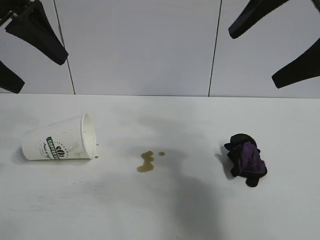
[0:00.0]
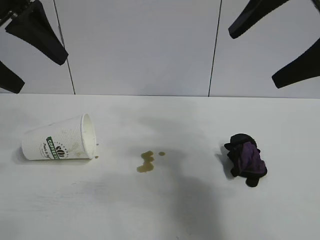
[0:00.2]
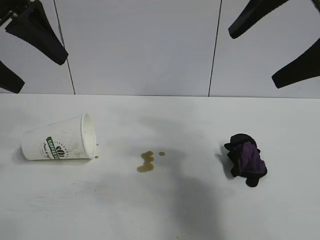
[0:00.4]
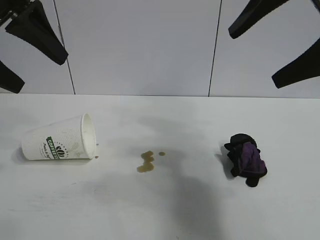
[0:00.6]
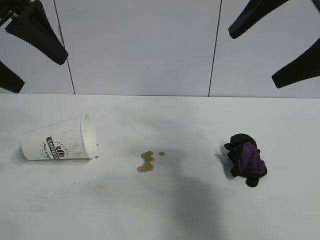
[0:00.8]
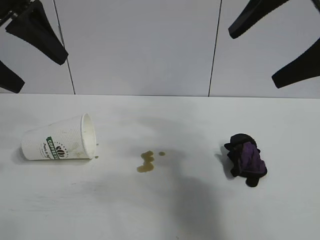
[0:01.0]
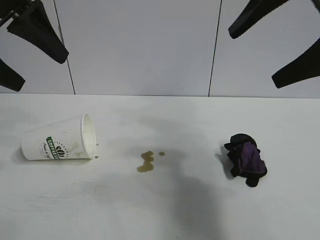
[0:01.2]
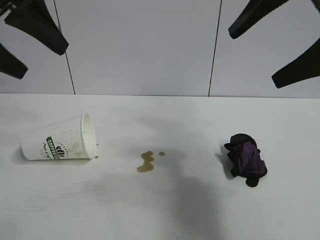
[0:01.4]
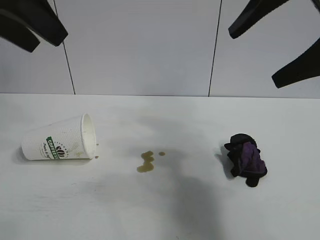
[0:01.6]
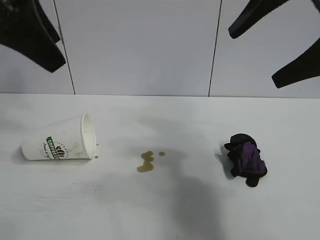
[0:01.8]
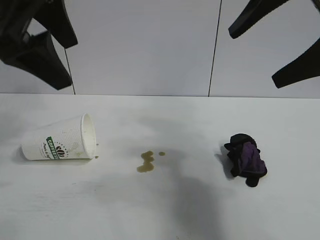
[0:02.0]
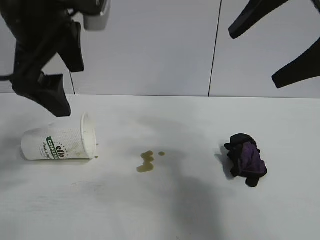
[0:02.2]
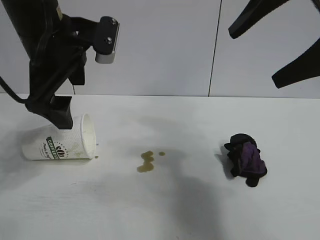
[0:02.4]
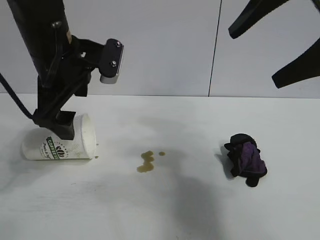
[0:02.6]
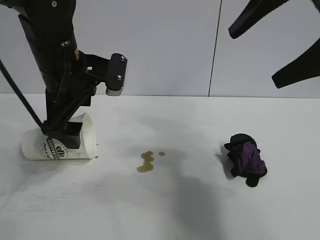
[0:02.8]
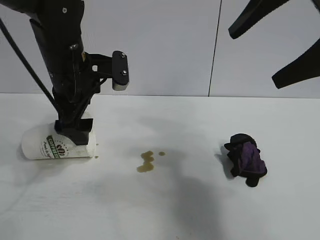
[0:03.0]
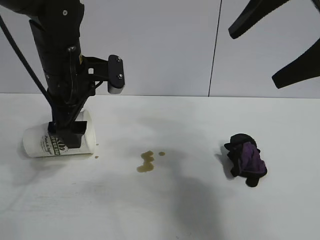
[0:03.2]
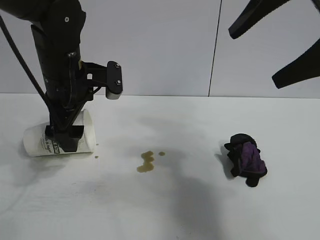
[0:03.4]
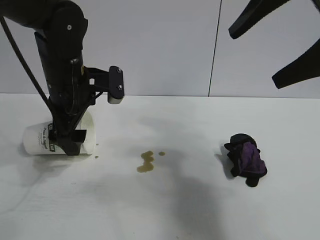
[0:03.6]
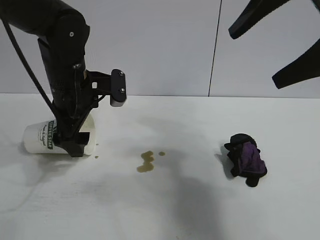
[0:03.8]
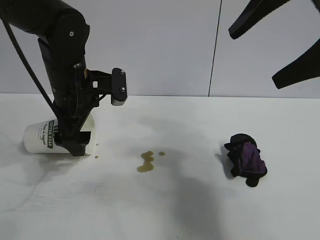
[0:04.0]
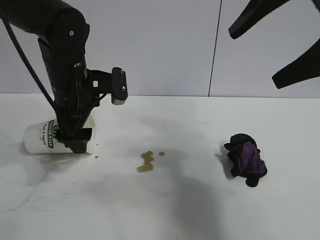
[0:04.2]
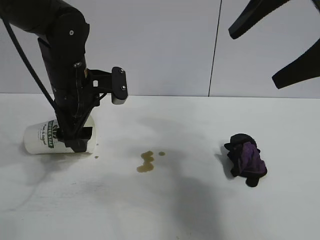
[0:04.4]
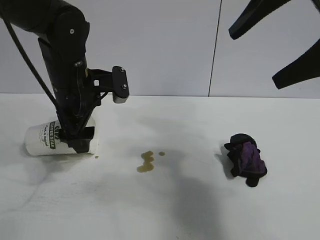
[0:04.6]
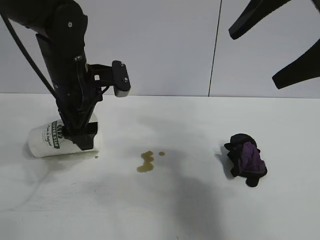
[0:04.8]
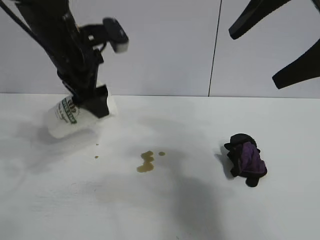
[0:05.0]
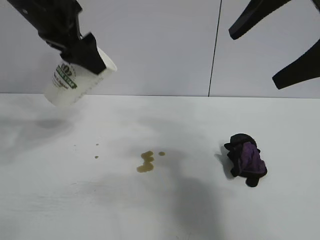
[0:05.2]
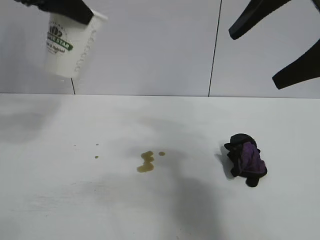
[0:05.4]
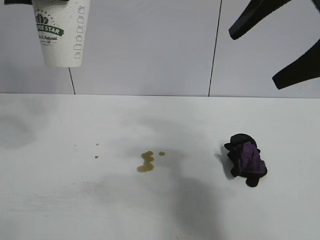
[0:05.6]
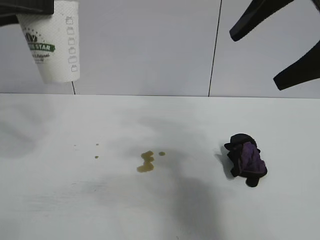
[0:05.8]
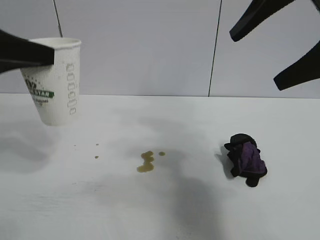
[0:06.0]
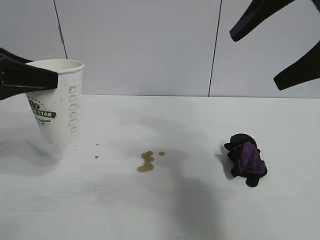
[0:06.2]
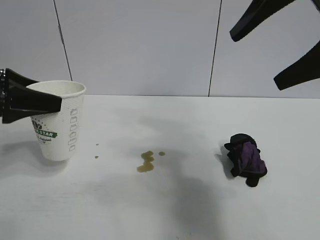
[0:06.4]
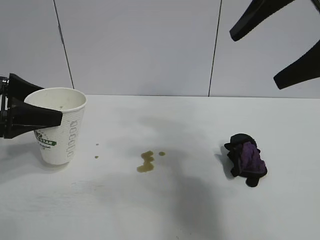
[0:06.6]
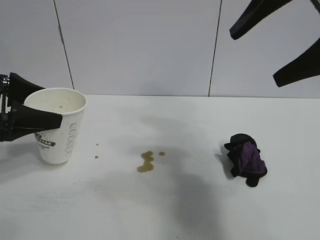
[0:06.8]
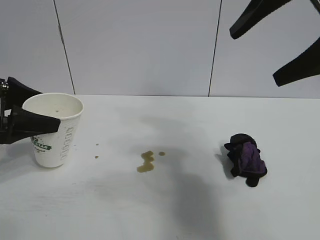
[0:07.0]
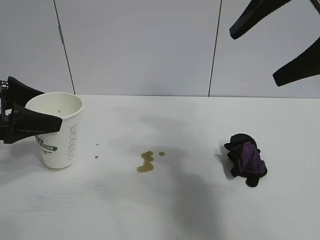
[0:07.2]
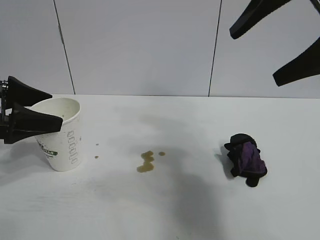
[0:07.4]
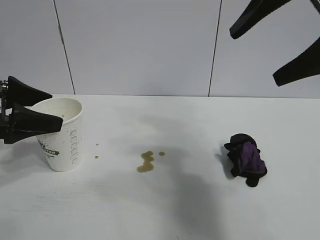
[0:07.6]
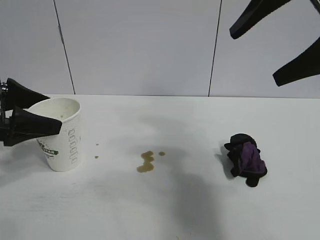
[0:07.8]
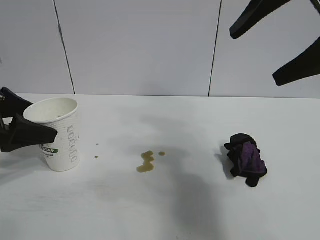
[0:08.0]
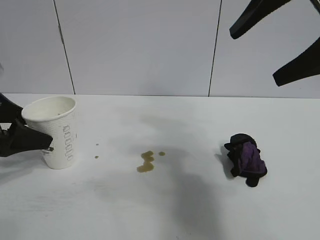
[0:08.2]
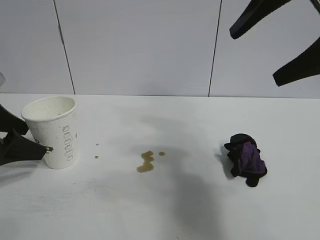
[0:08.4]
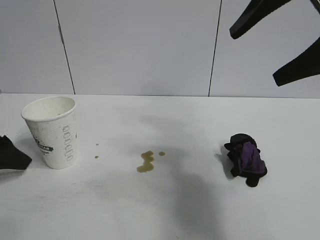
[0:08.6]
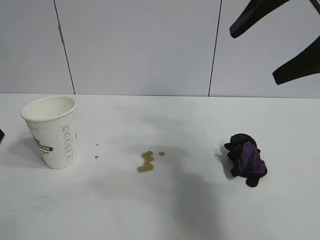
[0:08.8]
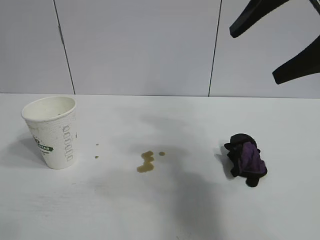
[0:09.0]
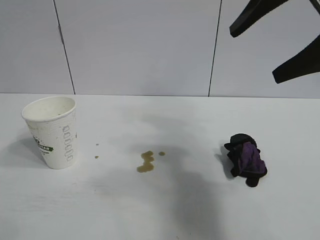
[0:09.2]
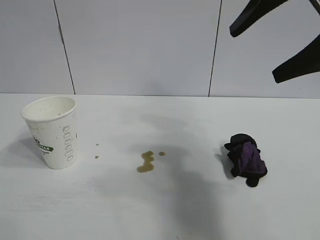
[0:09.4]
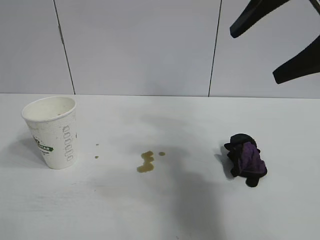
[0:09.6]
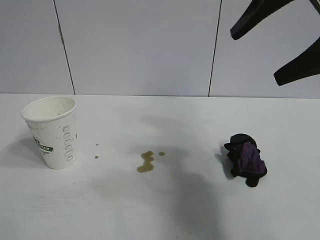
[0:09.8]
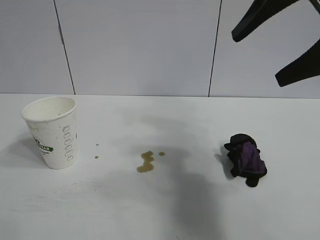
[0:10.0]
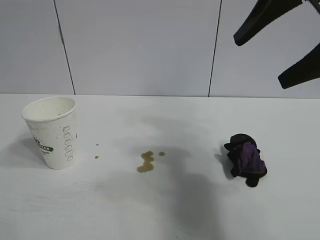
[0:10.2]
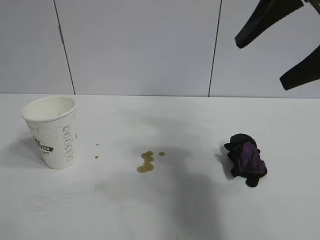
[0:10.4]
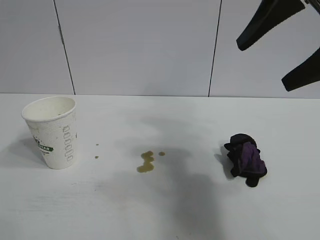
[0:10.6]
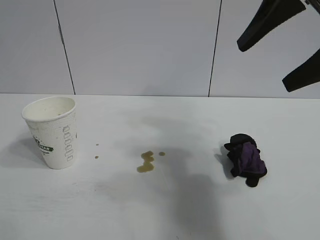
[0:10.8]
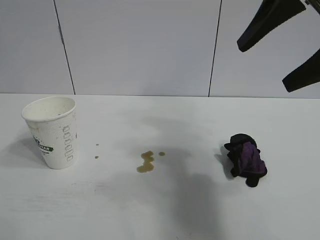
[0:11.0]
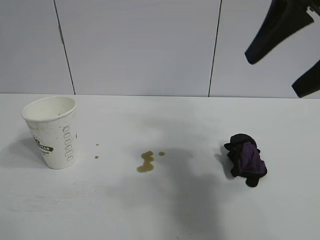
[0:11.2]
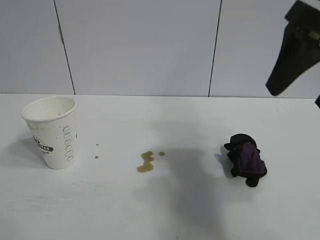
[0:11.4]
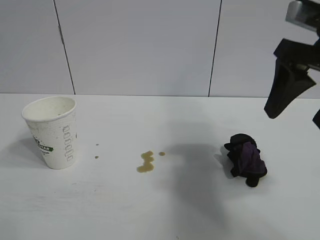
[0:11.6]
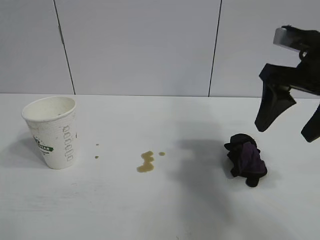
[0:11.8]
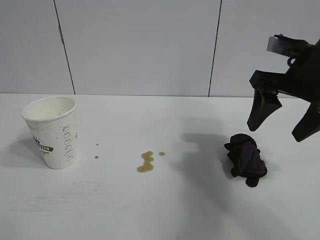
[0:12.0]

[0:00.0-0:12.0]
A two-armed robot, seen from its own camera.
Task of the whole recording: the left gripper pick up the fallen cup and place it upright, the right gripper grasp the black rag and wipe the stain on the table, the right gripper put the black rag back in its original position.
Step, 0:01.2 to 0:04.6: Grasp the paper cup with left gripper.
Step, 0:04.8 to 0:07.8: Stand the paper cup upright with left gripper.

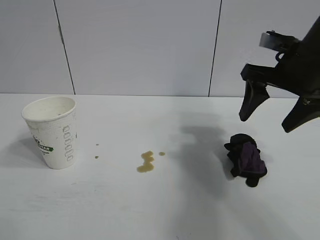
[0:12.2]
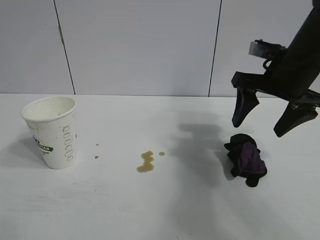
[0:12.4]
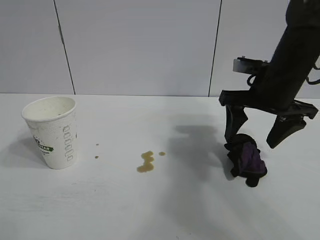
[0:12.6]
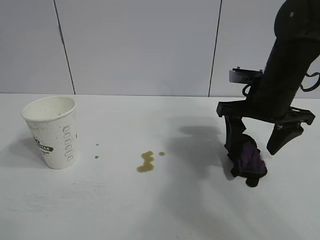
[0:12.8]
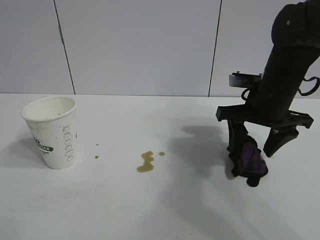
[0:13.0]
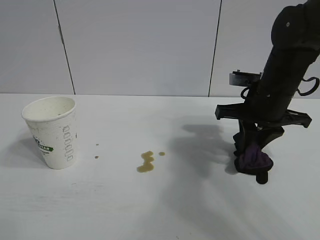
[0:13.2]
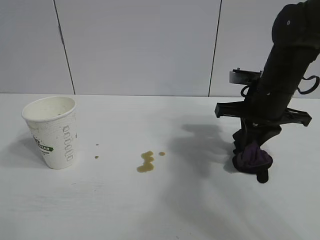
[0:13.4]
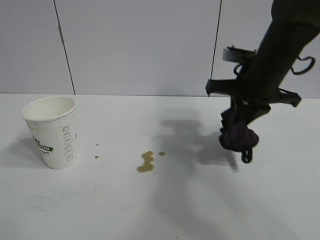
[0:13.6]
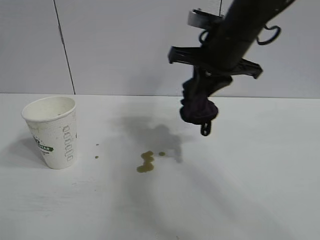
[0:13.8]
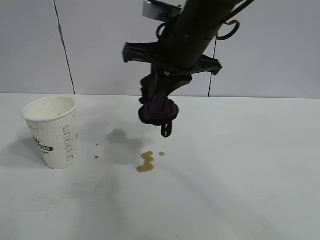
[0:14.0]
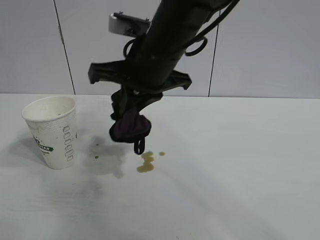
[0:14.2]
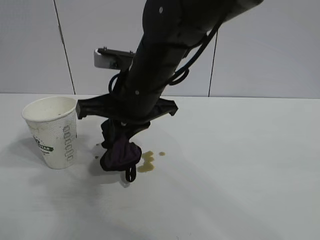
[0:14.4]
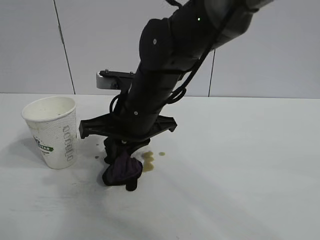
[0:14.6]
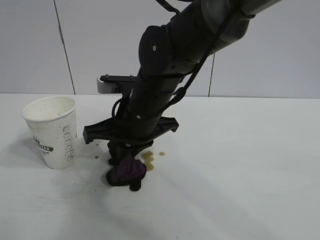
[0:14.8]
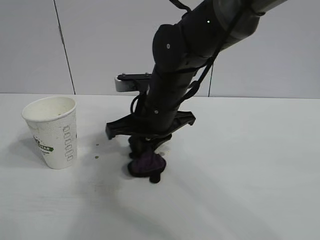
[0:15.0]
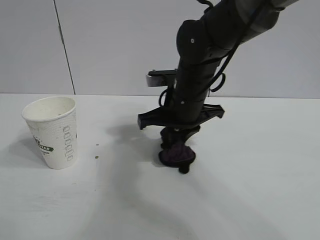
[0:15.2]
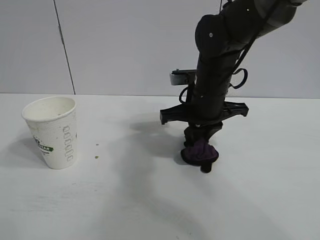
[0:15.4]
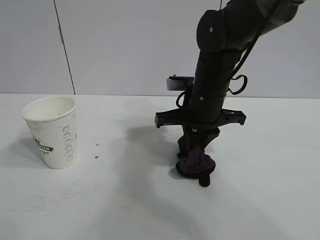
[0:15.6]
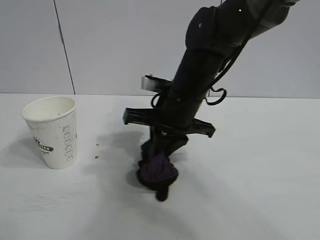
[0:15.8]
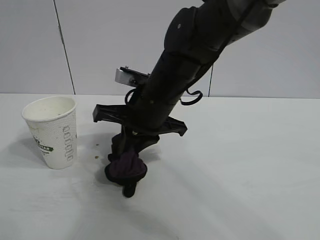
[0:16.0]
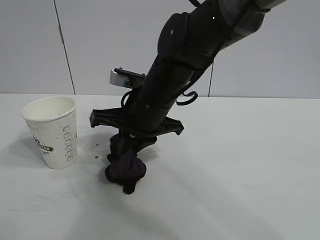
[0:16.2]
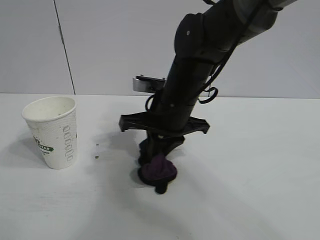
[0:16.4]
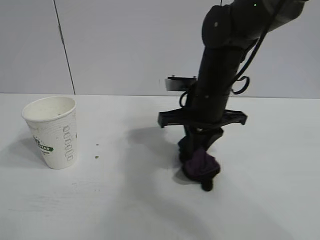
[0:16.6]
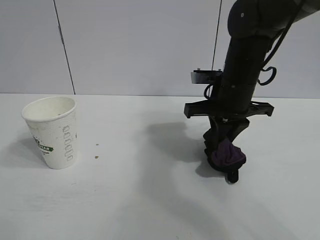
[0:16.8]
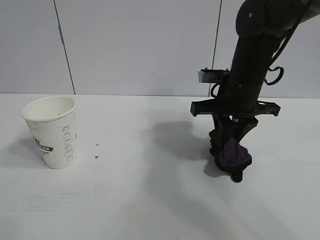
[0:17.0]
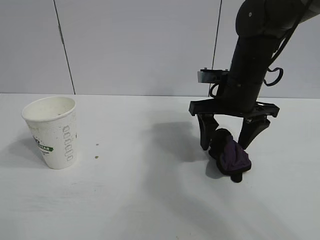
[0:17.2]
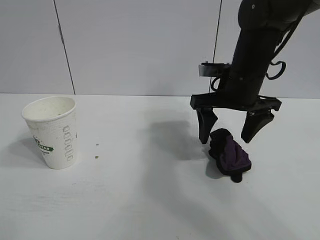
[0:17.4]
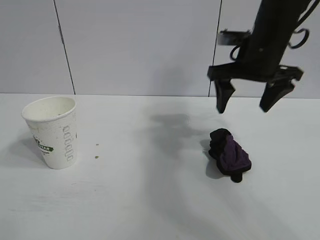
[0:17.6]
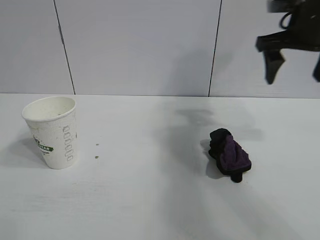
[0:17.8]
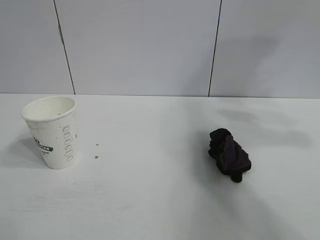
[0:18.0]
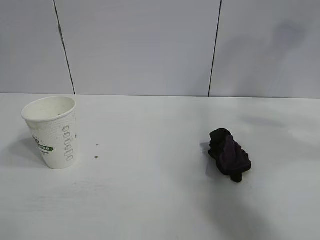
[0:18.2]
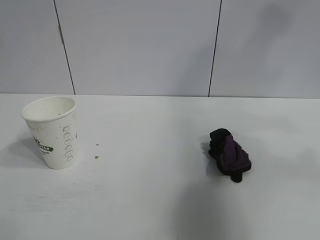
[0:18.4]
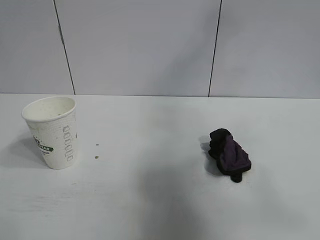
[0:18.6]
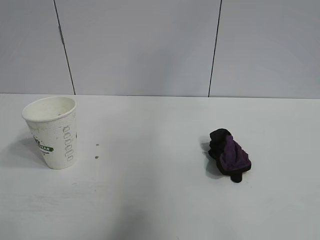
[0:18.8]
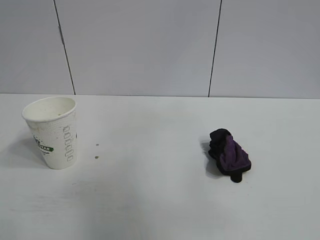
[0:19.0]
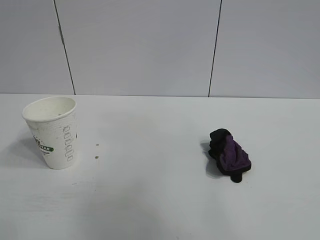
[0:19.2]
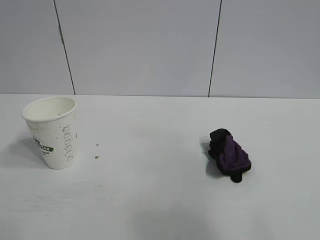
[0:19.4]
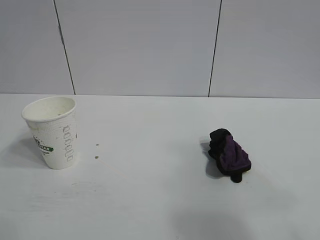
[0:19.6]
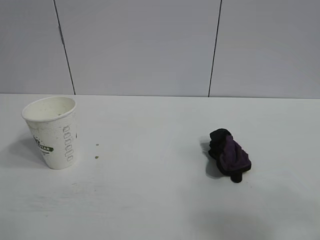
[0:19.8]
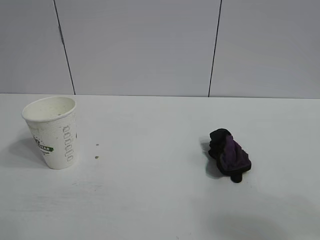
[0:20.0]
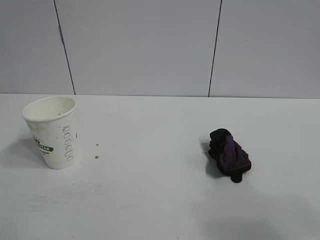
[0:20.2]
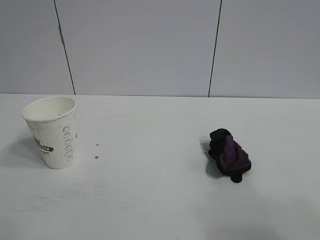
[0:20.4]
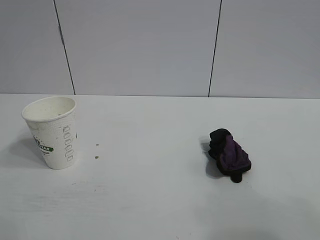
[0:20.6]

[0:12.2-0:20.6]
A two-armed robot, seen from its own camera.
Task of the whole recording: the left gripper pick up the fallen cup and place it upright, the right gripper grasp the black rag and wipe the stain on the table, the right gripper put the black rag back in its original position.
Step, 0:13.4 to 0:16.0: Wipe the stains off the table with the rag with right gripper.
Step, 0:16.2 to 0:17.0: Place the rag on the table with right gripper.
